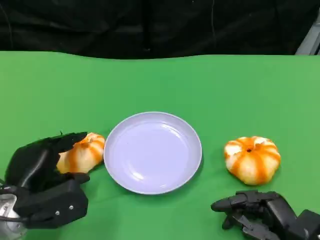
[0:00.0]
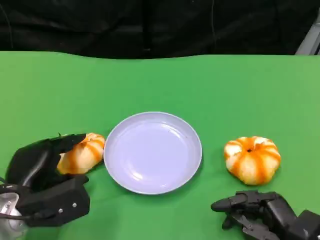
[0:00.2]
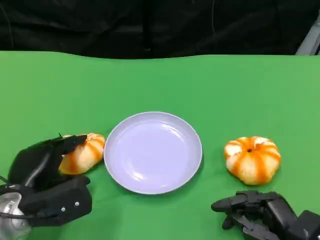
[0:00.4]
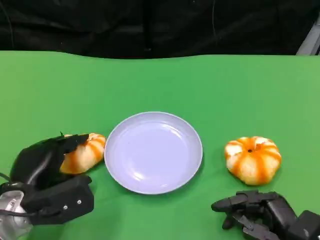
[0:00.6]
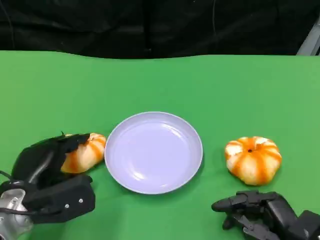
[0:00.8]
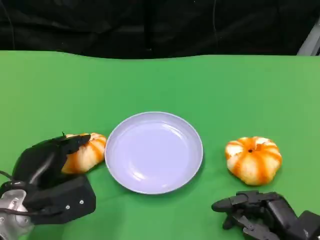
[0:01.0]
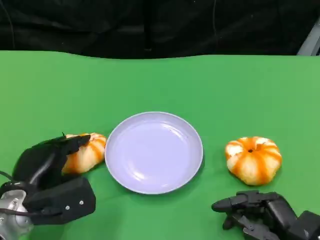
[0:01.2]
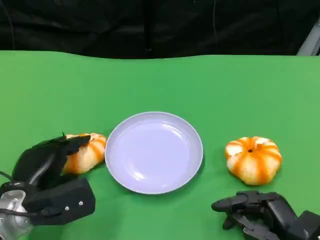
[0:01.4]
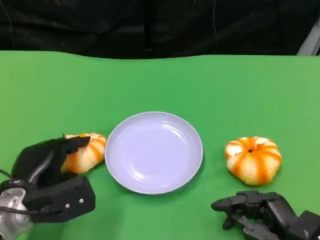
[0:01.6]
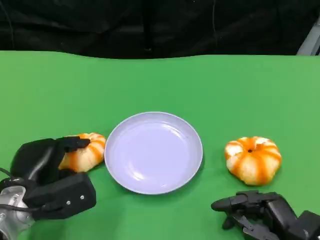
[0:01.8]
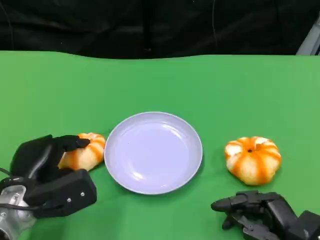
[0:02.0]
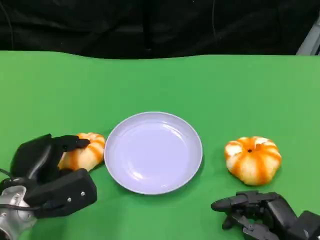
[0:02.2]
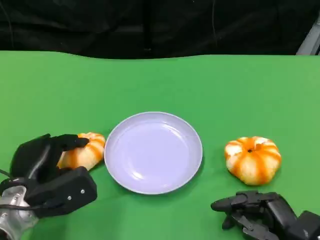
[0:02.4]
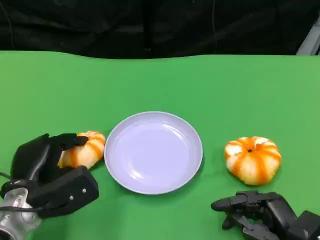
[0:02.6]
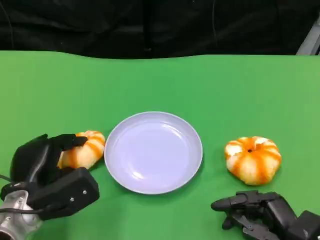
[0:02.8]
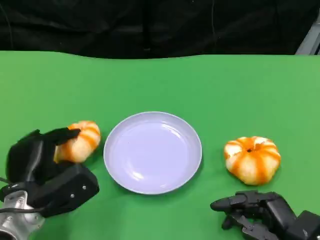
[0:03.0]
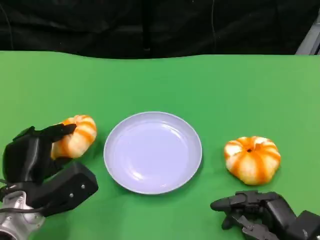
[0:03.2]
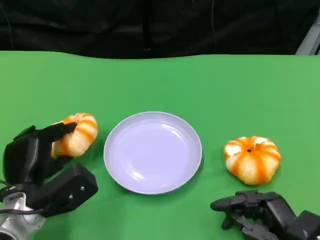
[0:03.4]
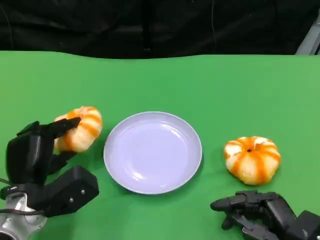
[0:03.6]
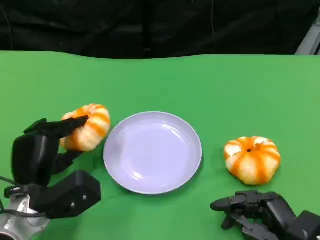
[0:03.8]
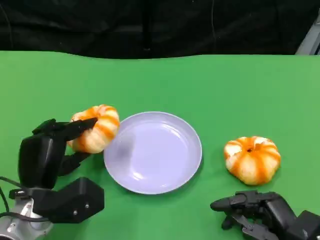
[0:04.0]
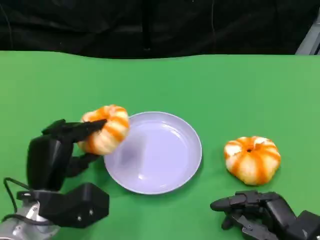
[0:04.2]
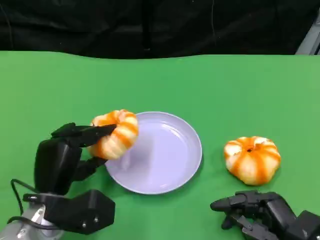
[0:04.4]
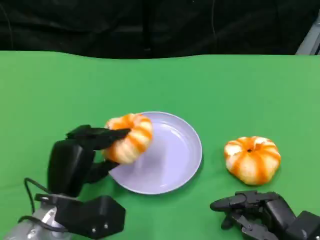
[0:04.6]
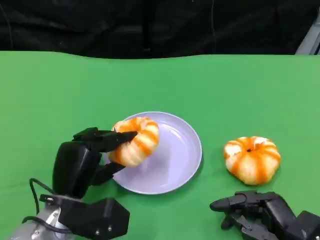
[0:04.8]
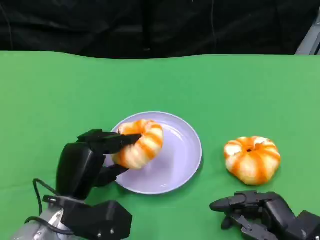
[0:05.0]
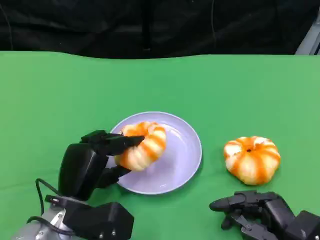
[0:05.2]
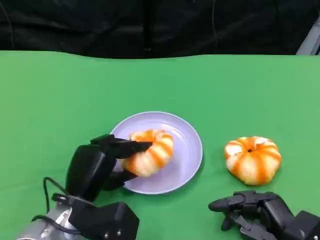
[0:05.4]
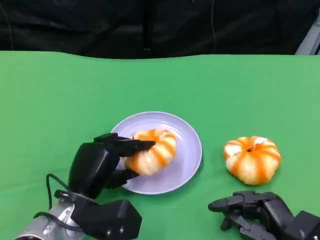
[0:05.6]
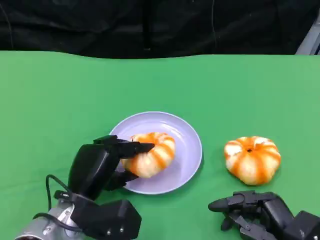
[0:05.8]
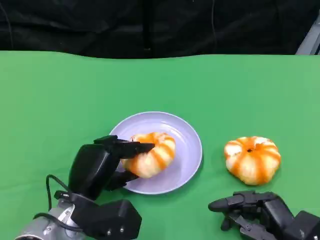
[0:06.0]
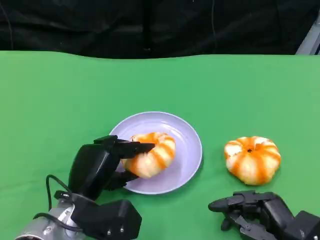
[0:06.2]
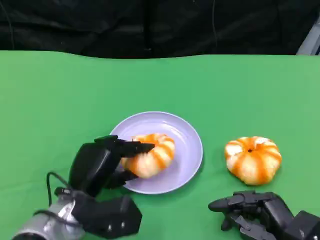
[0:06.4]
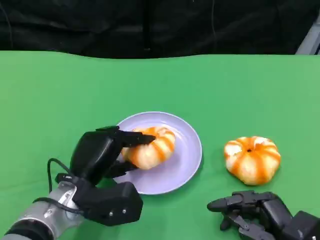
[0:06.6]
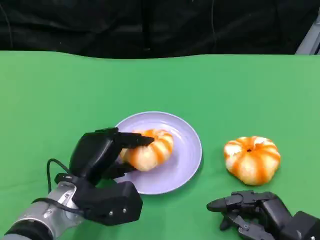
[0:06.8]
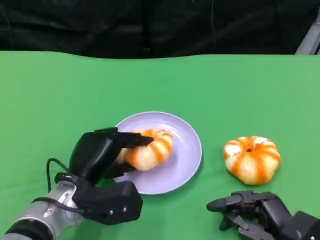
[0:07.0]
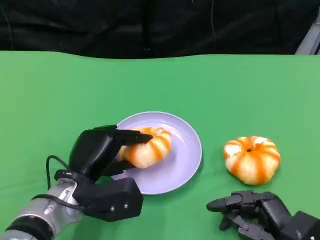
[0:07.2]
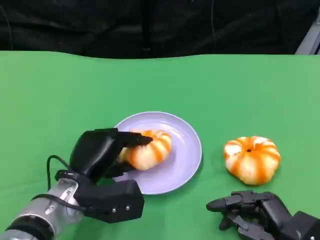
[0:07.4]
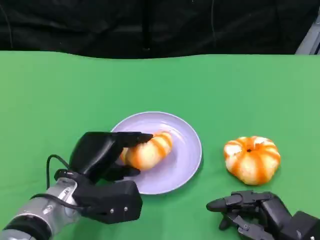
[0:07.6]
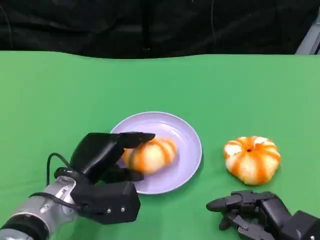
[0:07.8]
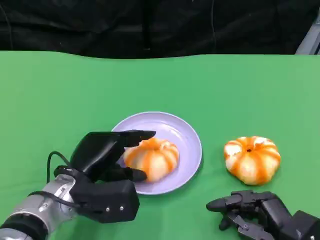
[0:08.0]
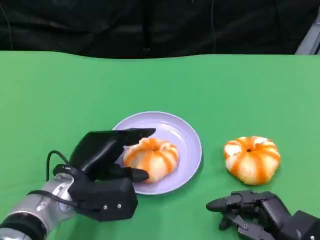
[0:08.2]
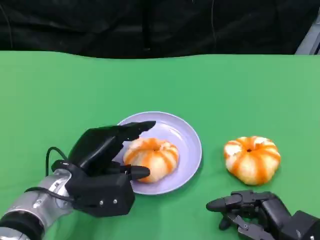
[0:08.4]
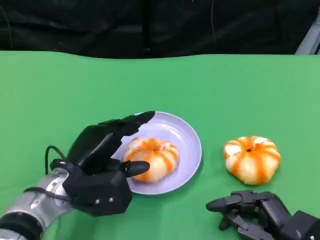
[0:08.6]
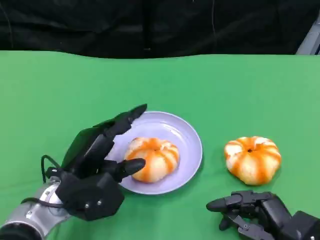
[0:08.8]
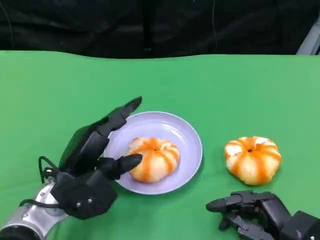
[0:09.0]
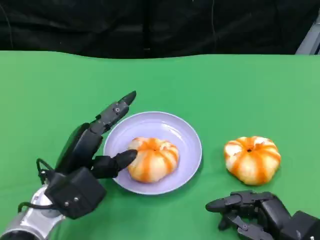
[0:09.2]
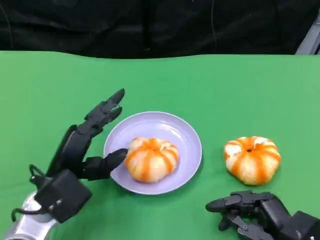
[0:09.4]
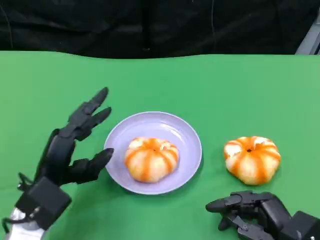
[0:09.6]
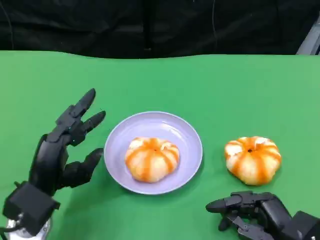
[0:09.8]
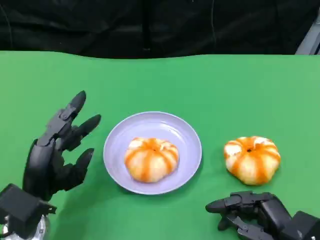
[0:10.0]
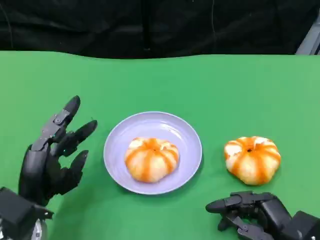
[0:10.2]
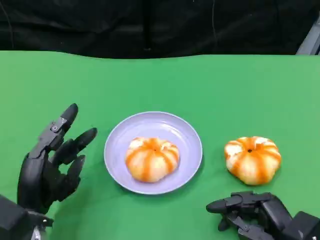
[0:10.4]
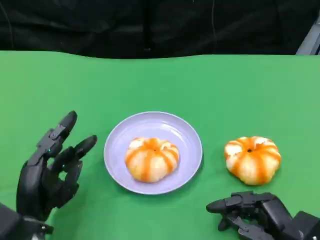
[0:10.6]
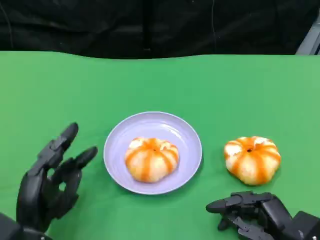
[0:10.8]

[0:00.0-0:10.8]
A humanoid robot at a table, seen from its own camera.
Task of the whole recording: Grasp the bread from the table and place it into the plate.
0:00.0 to 0:01.6: The hands make only small movements.
0:03.0 to 0:04.6: The left hand ends up some 5 cm from where it was.
0:04.6 to 0:06.2: The hands move only a little.
0:06.2 to 0:07.8: The hands make only small movements.
0:09.2 to 0:10.8: The left hand goes about 5 cm backward.

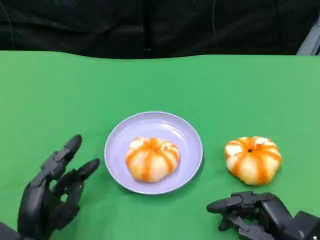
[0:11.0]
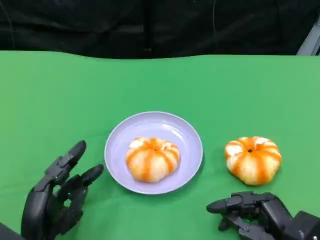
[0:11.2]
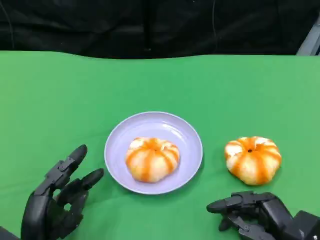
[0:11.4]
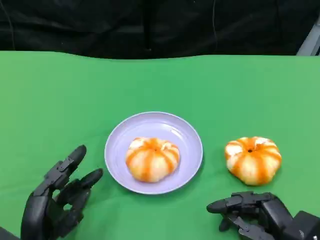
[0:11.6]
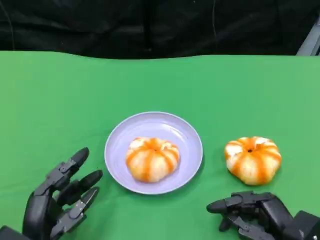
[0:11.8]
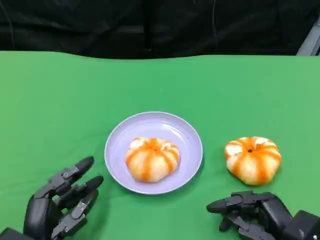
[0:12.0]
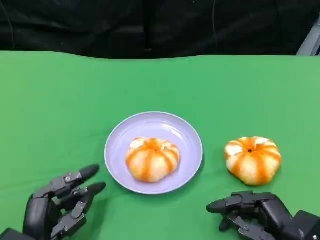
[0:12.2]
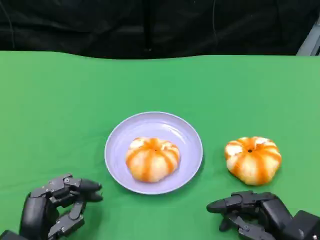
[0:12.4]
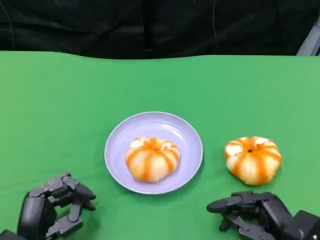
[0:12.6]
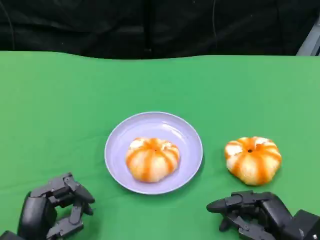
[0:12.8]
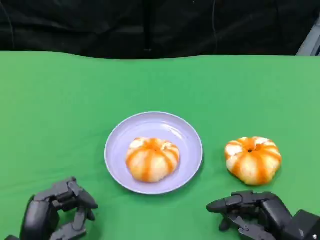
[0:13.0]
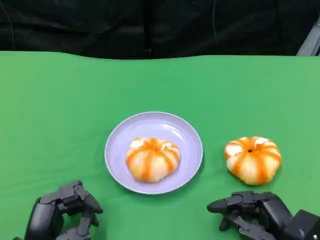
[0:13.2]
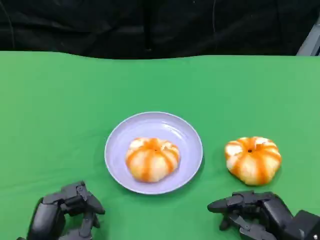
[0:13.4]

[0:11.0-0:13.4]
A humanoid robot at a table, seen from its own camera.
Task of the whole recording: Grasp the bread from the table and place it into the plate.
0:11.0 to 0:13.4: There are only small adjustments of the hands.

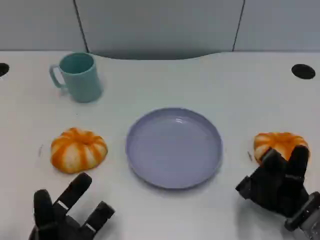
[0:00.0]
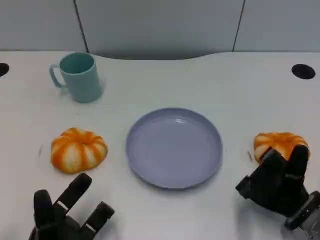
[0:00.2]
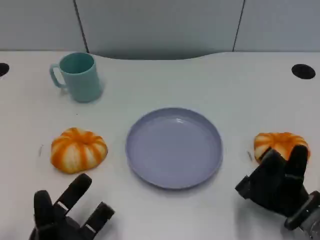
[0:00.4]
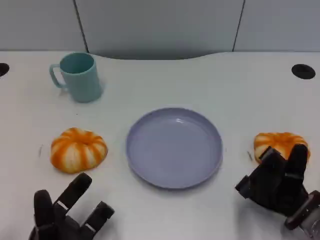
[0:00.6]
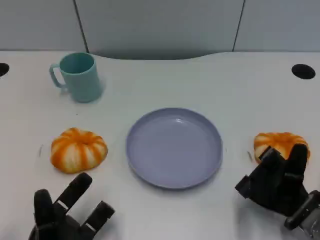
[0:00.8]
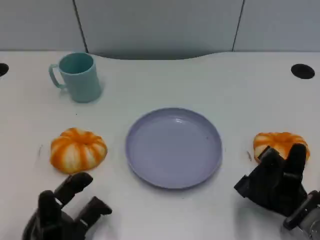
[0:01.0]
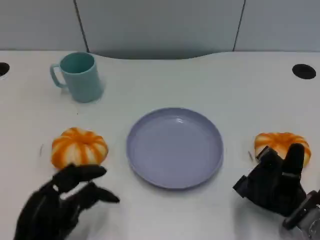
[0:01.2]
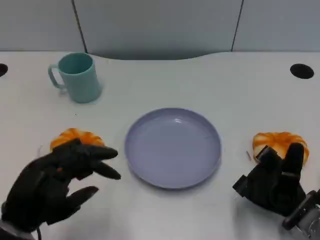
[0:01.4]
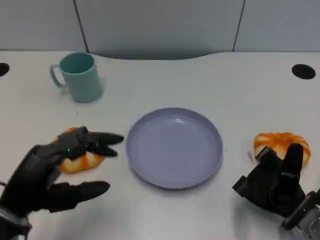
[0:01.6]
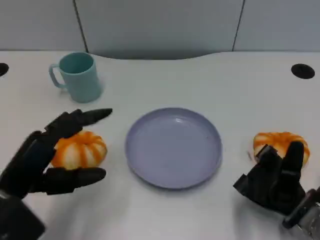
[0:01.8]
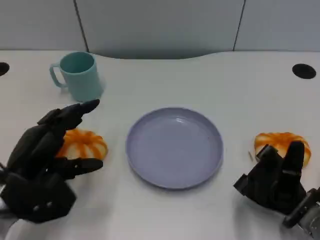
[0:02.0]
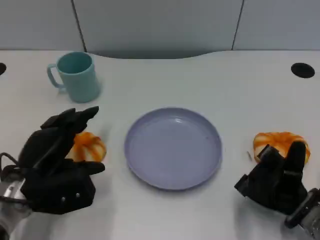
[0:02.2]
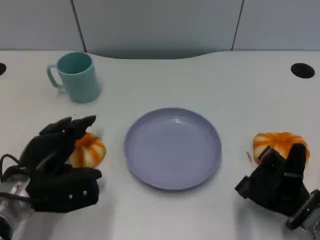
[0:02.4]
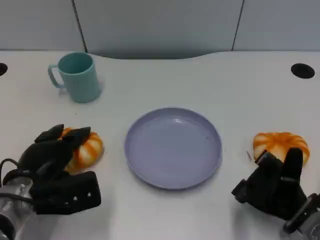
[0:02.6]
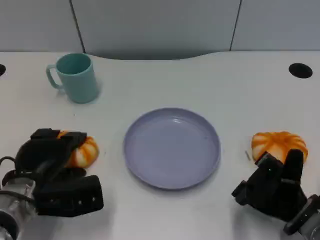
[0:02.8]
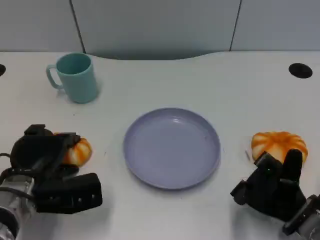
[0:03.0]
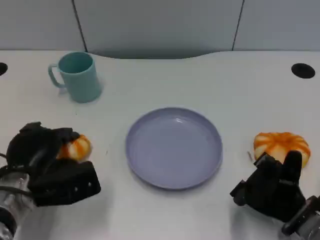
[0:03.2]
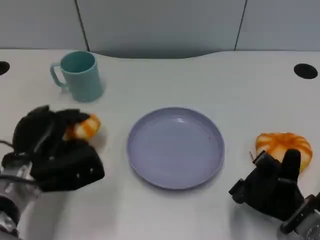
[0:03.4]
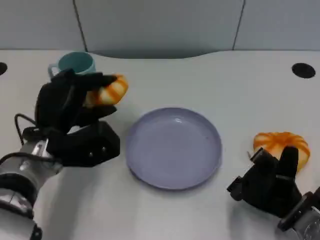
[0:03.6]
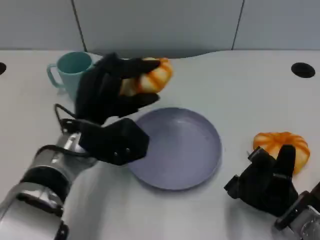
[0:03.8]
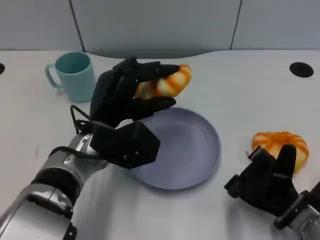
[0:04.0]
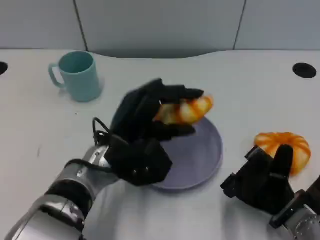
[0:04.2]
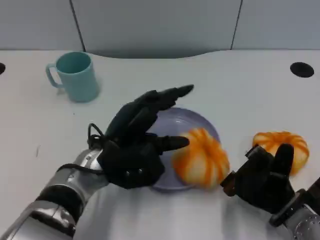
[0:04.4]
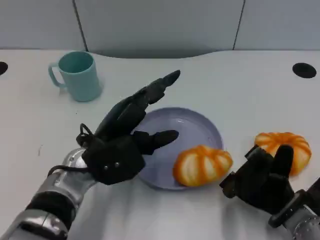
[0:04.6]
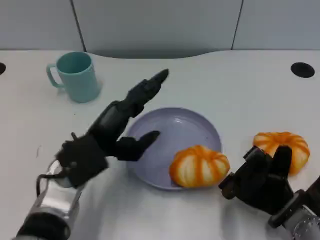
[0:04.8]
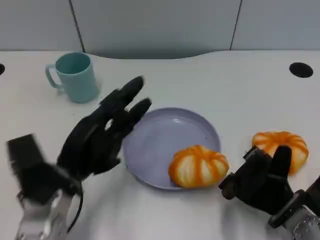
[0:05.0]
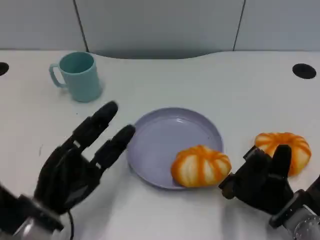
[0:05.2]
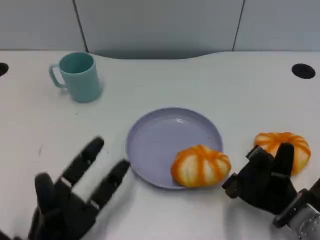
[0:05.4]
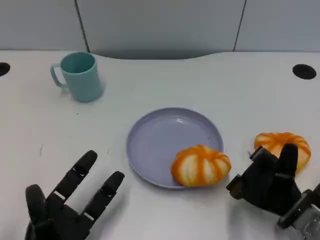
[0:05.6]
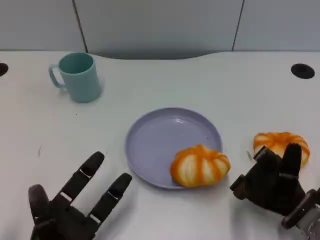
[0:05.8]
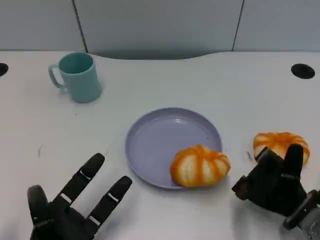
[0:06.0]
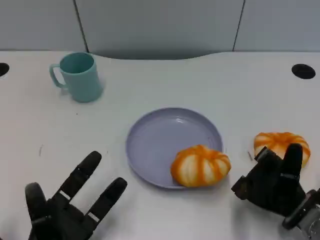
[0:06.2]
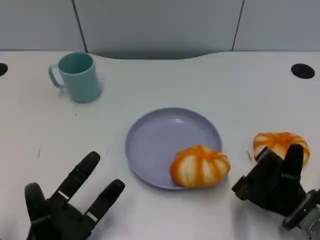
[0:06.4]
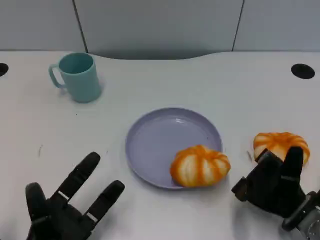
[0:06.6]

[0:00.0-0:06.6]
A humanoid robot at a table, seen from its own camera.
Task of the whole recording: Grasp the bread from the table and place it into the plate.
0:00.0 to 0:01.6: The left hand heads upward, covering roughly 10 cm.
0:01.6 to 0:03.2: The left hand is displaced forward and downward by some 10 cm.
0:03.2 to 0:05.0: The left hand reaches roughly 15 cm to the right, then returns.
0:05.0 to 0:06.6: The left hand heads downward and backward, covering some 10 cm.

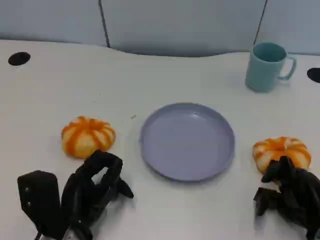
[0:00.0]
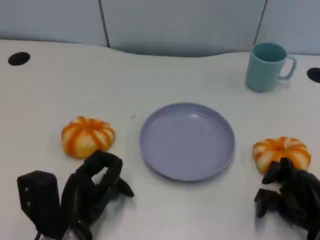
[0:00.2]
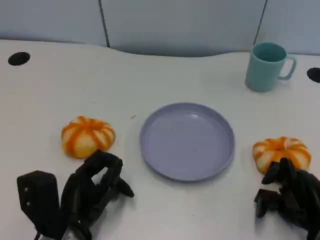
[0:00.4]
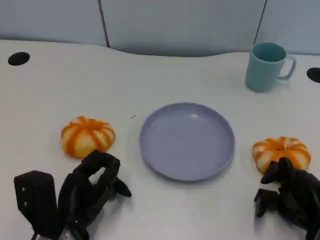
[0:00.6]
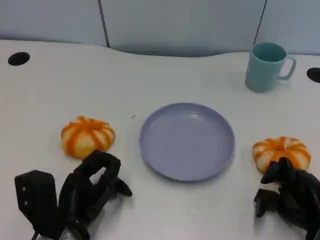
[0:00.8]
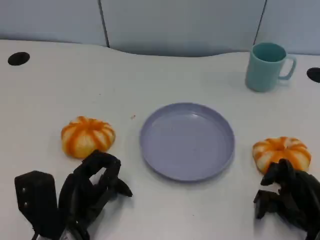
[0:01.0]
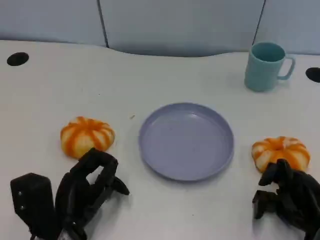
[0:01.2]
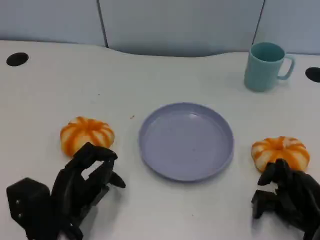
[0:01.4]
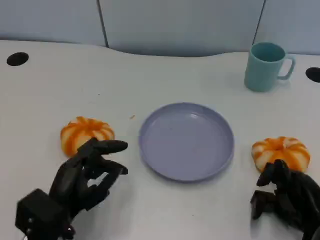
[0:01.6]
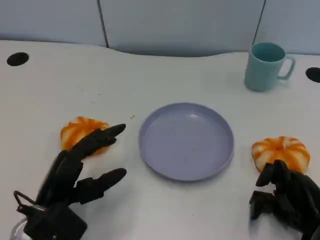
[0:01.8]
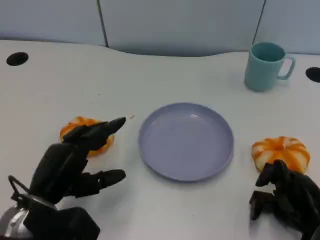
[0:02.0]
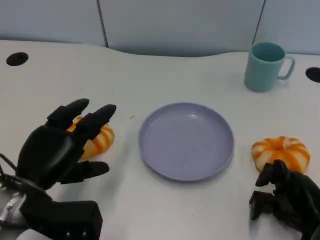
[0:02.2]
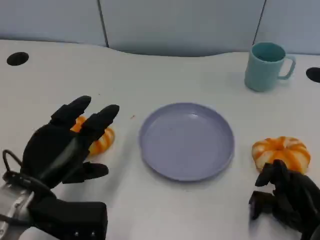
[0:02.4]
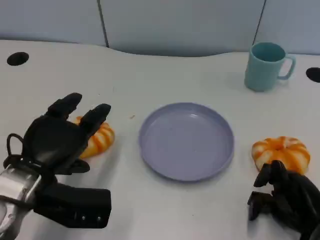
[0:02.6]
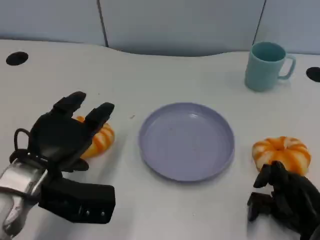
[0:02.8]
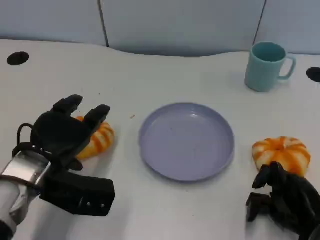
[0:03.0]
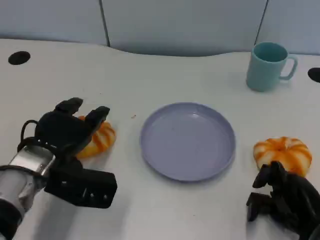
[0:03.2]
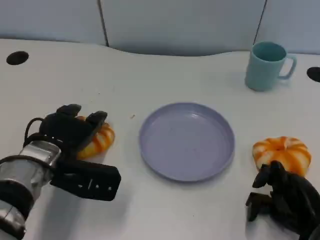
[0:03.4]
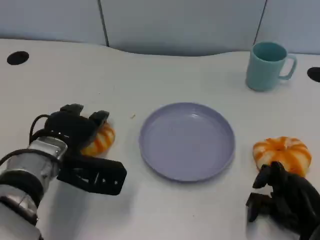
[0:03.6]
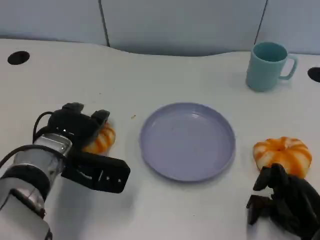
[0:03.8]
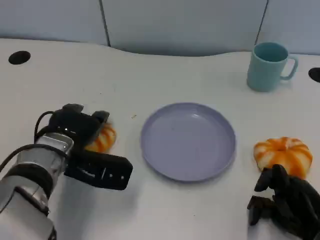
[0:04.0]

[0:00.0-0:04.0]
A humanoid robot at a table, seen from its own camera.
Task of the whole recording: Grasp the bread from the table and place it into the plate.
0:00.0 to 0:01.4: The hands make only small movements.
0:01.4 to 0:02.6: The left hand shifts roughly 10 cm upward.
0:02.6 to 0:04.0: The left hand moves forward, about 5 cm.
